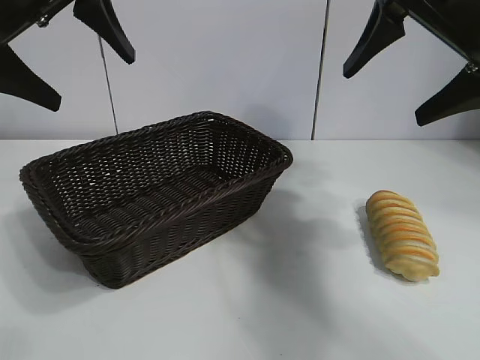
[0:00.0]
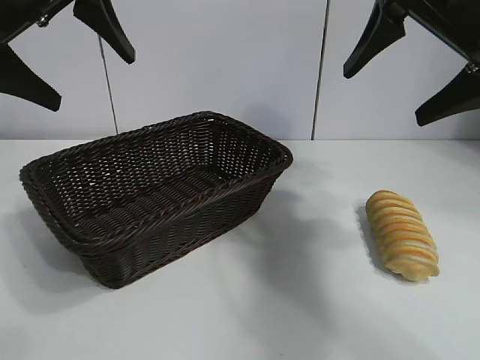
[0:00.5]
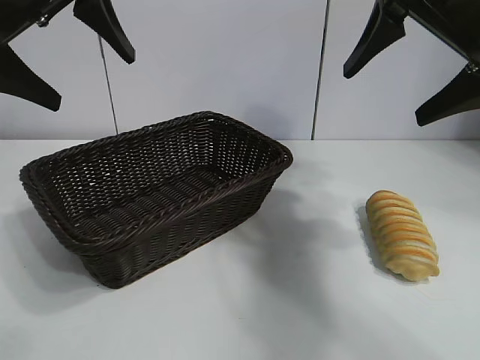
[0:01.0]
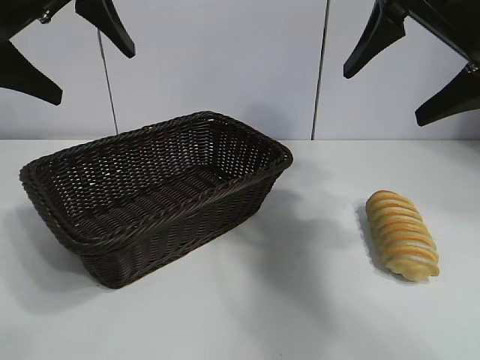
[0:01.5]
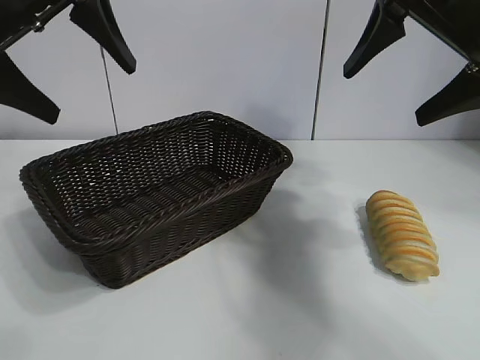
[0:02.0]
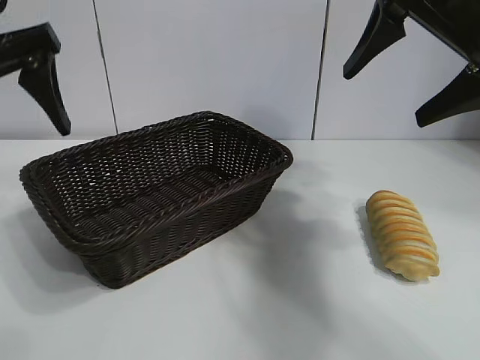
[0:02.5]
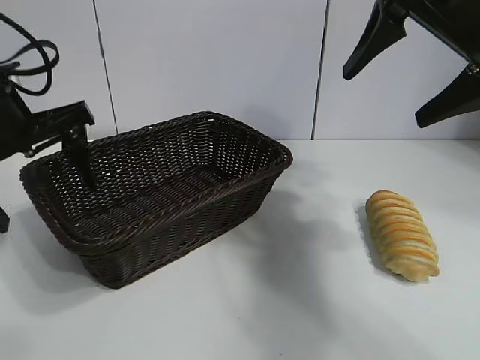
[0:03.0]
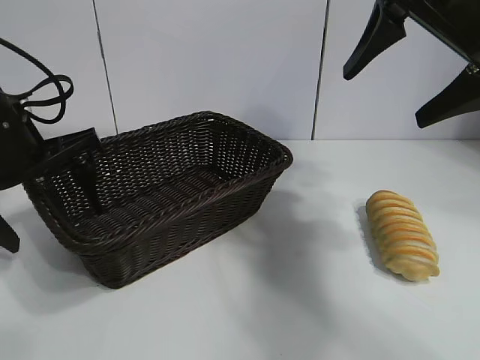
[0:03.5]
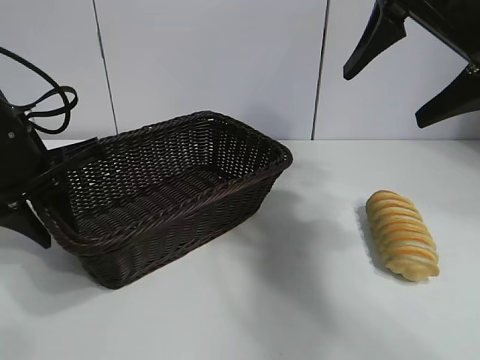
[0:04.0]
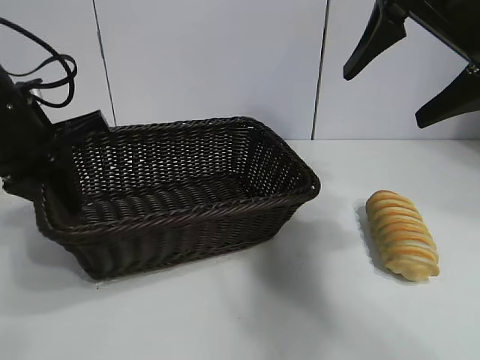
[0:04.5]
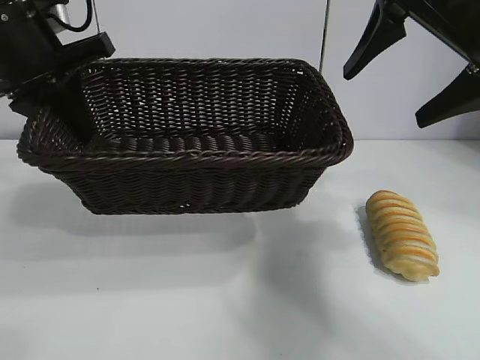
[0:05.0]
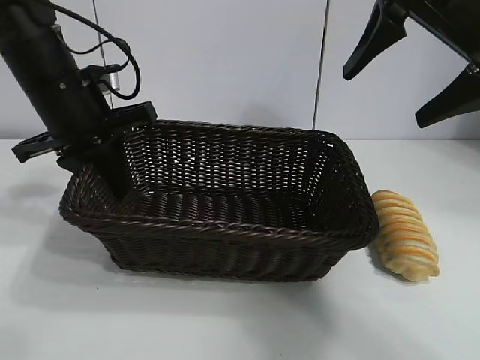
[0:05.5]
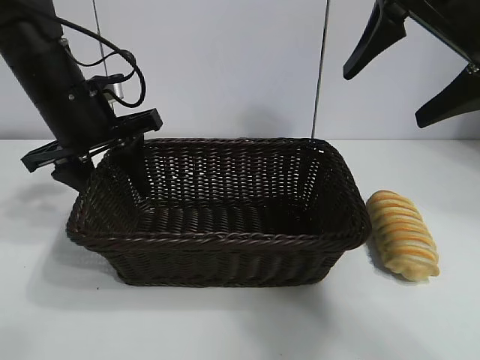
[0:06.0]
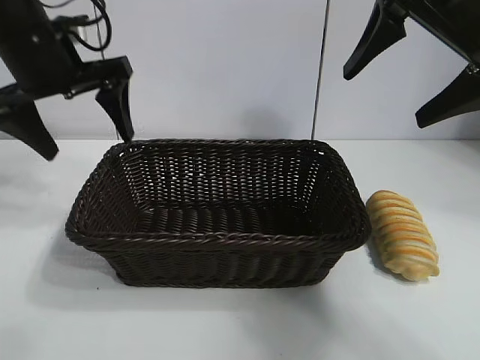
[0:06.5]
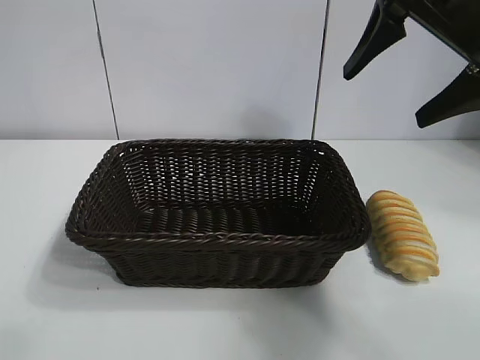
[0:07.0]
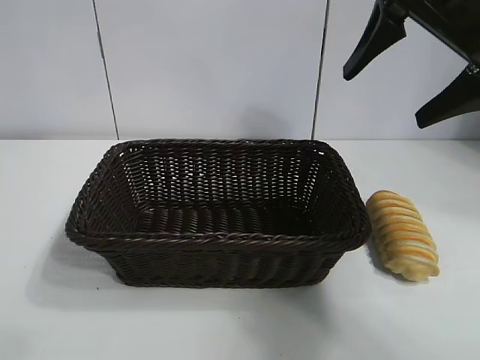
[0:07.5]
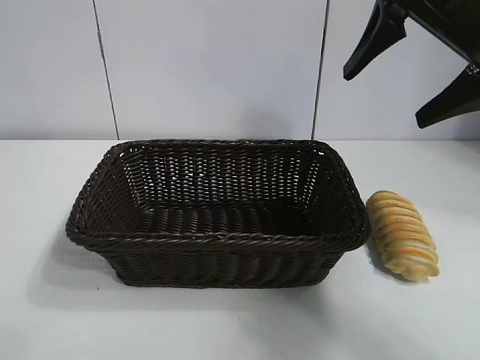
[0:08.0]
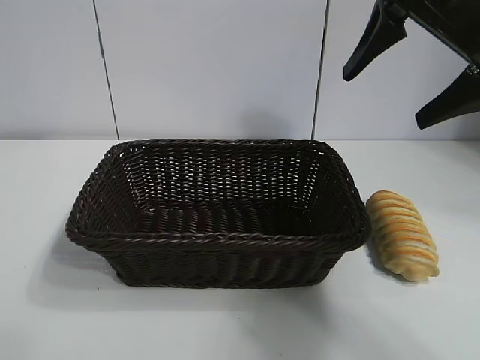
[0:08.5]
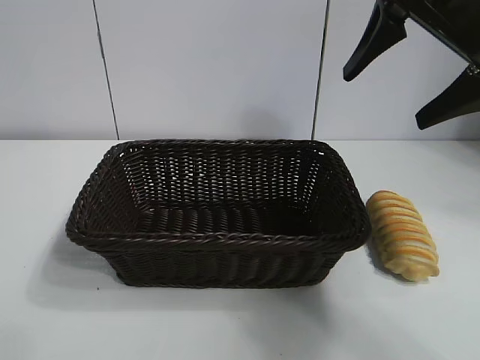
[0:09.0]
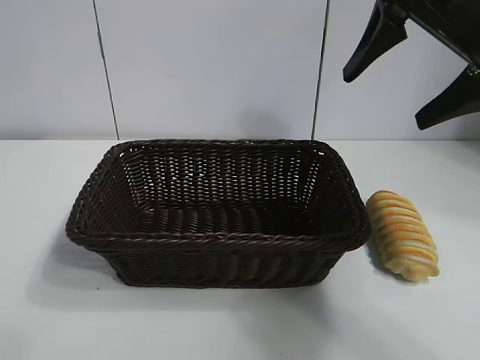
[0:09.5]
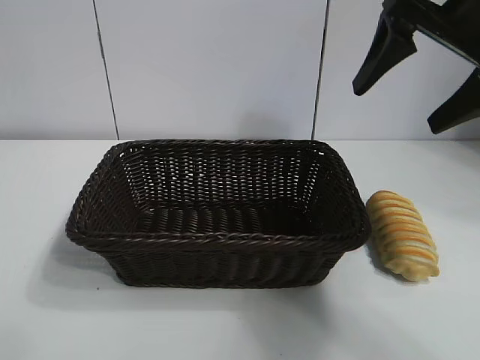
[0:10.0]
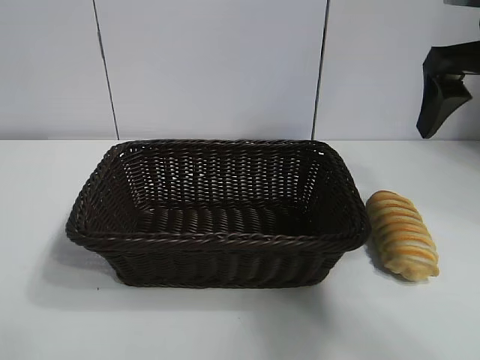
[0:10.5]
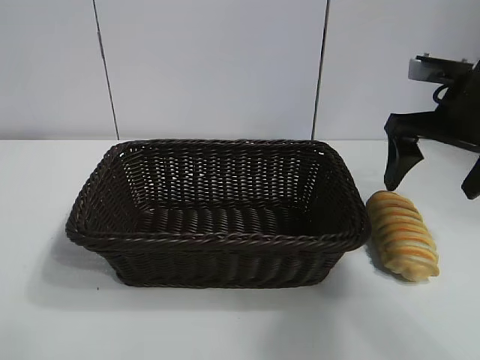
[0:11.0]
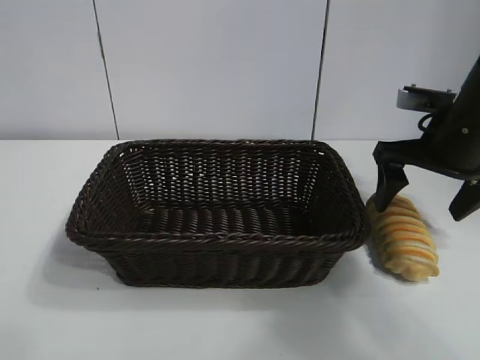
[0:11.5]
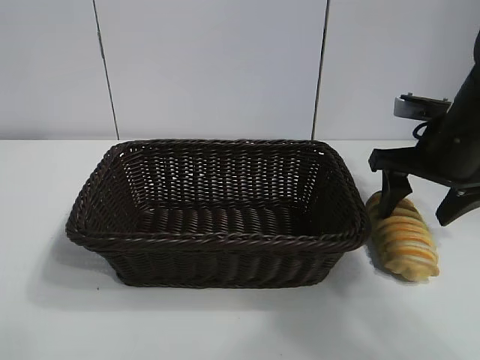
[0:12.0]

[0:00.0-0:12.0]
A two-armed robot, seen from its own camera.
Task of the whole recording: pick up the long bread and put it into the basket.
Step, 0:01.5 to 0:04.0: Grasp the basket with the left gripper.
Step, 0:04.5 to 0:06.0: Place the basket in the center of the table with the left gripper.

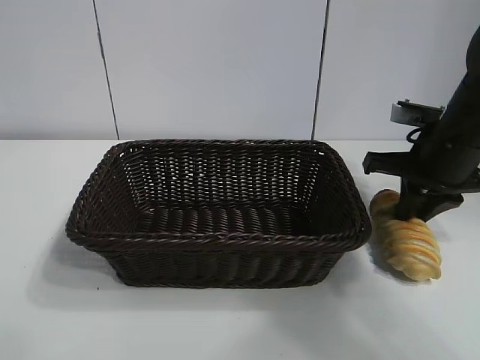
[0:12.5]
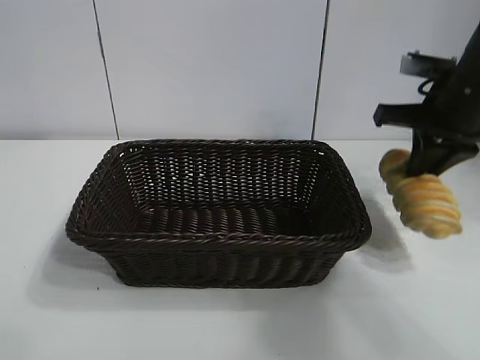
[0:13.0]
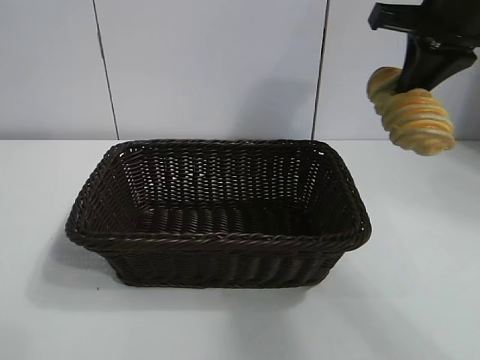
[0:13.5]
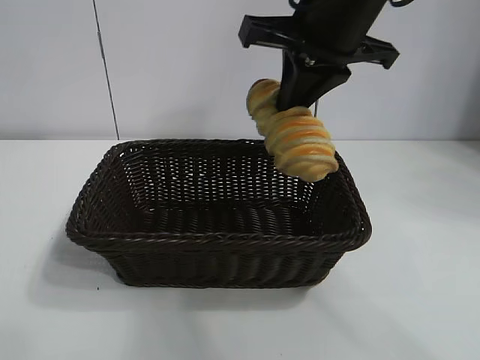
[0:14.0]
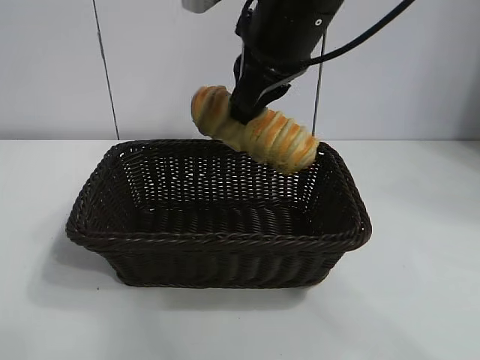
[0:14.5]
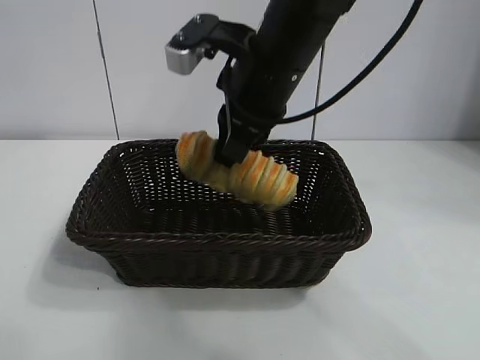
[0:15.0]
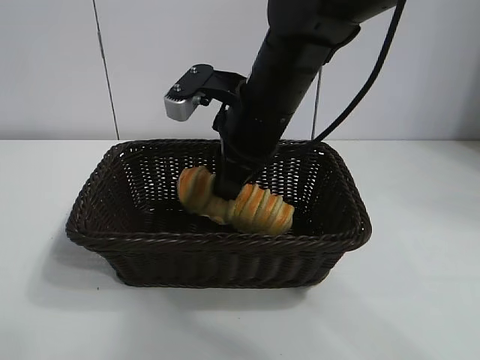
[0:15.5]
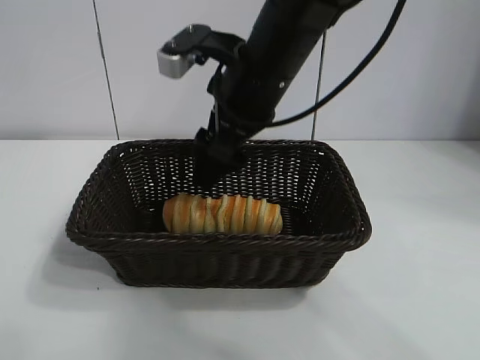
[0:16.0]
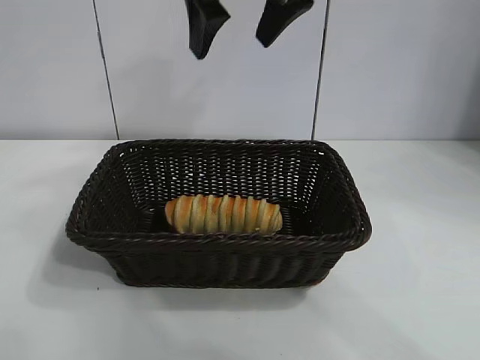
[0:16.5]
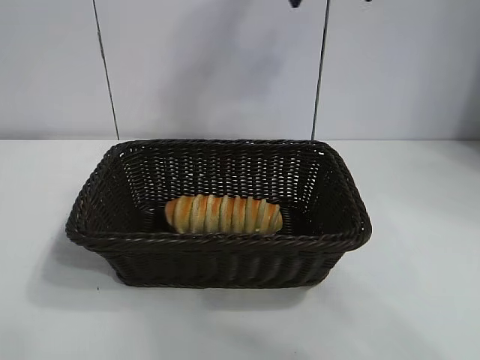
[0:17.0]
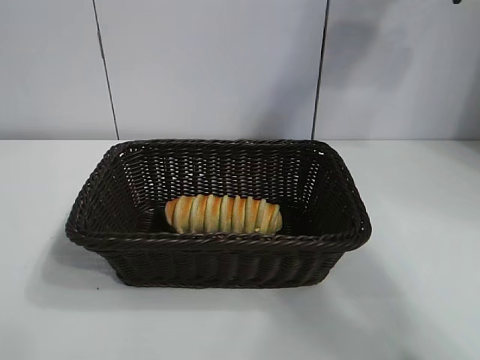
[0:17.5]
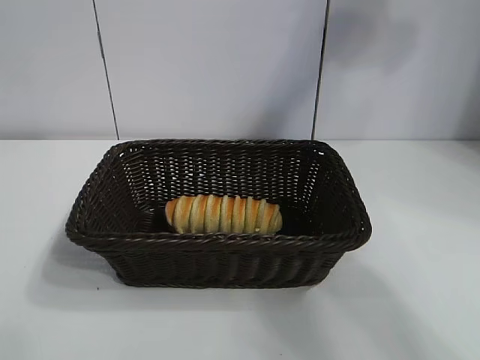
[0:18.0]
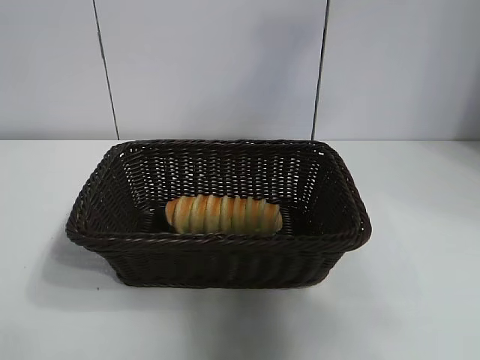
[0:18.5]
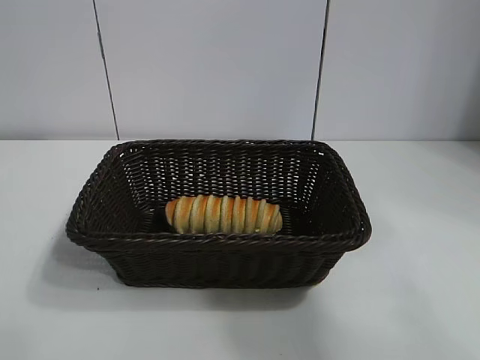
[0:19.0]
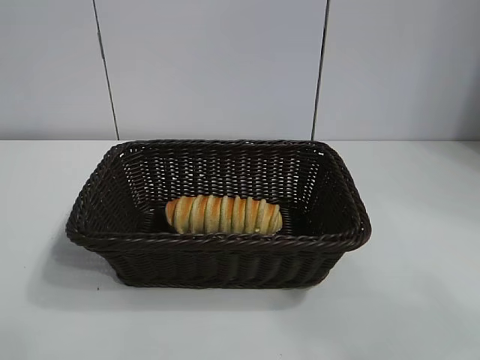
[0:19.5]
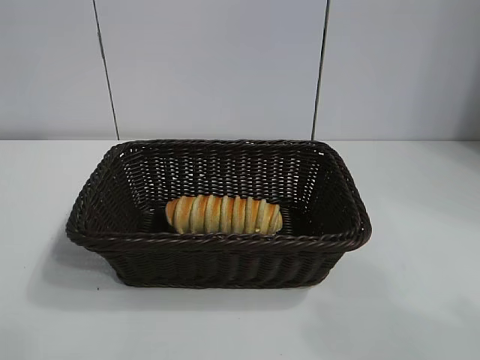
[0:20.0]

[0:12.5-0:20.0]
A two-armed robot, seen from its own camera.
Task of the whole recording: pick up the long bread and put it into the basket.
Step, 0:13.0 to 0:15.5: Place the long bread in the basket with right gripper.
